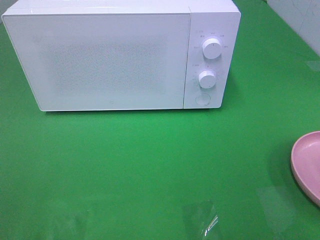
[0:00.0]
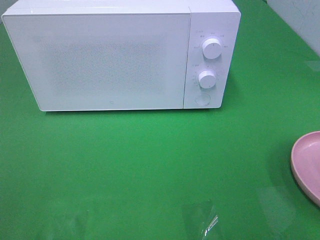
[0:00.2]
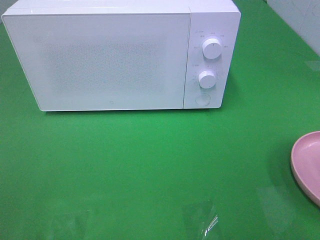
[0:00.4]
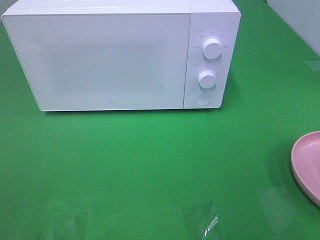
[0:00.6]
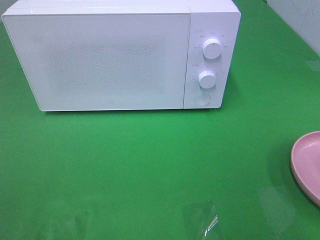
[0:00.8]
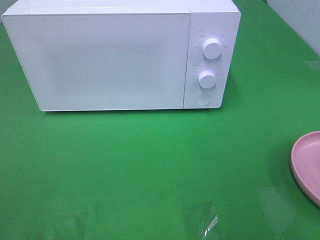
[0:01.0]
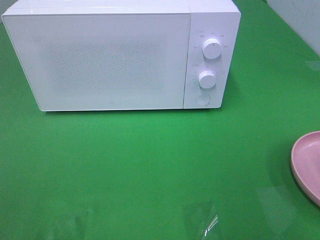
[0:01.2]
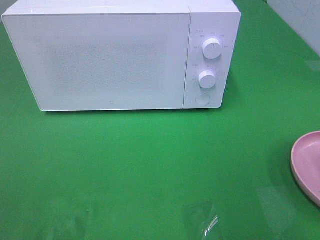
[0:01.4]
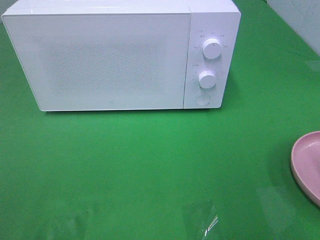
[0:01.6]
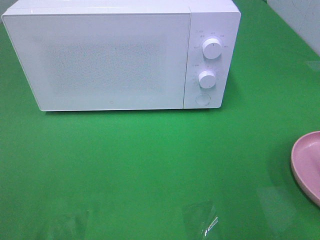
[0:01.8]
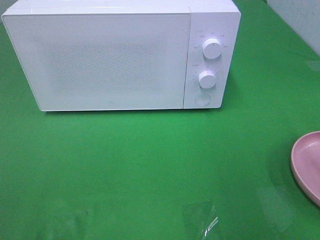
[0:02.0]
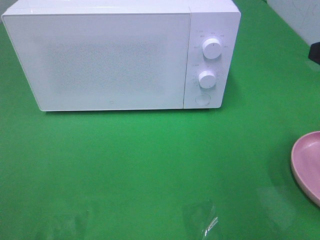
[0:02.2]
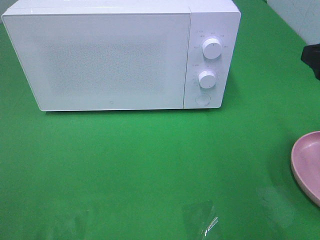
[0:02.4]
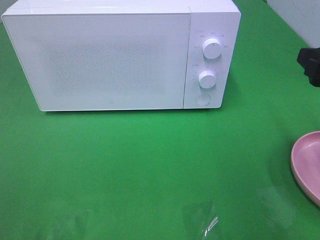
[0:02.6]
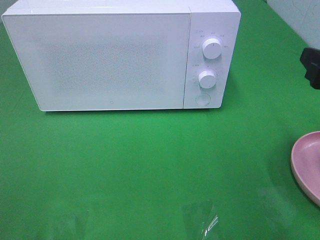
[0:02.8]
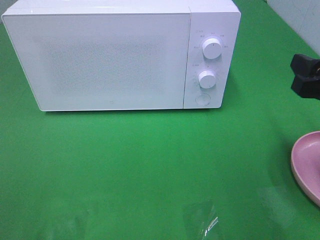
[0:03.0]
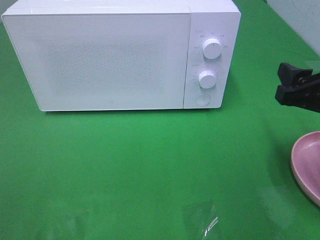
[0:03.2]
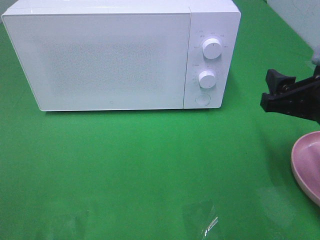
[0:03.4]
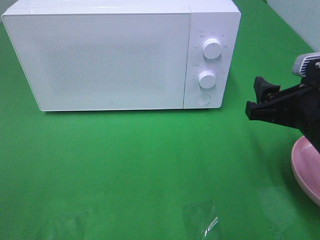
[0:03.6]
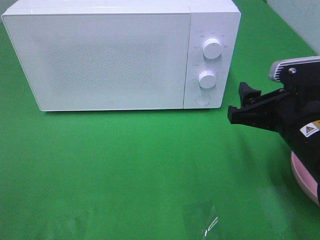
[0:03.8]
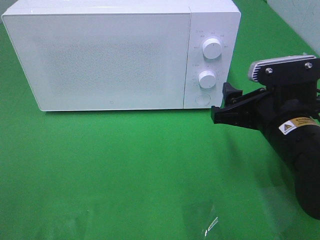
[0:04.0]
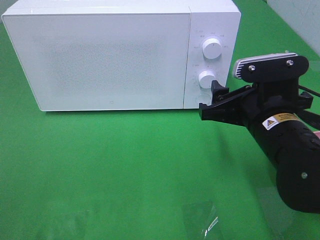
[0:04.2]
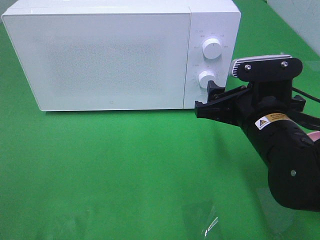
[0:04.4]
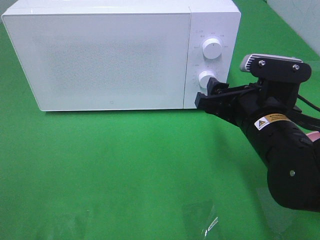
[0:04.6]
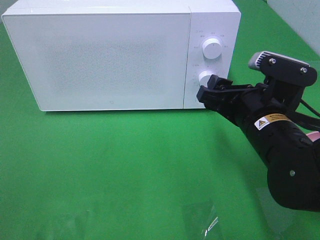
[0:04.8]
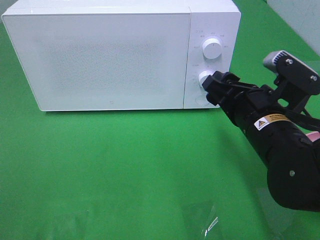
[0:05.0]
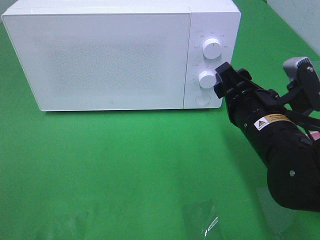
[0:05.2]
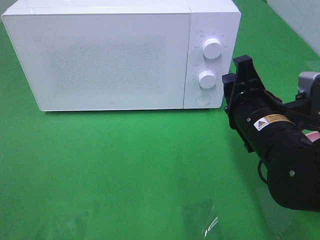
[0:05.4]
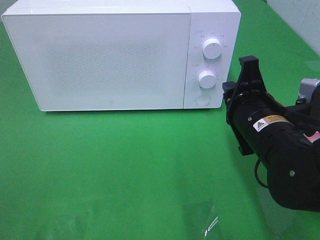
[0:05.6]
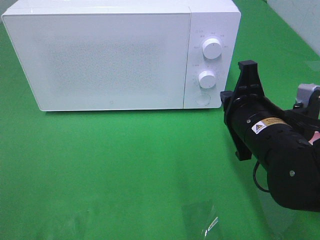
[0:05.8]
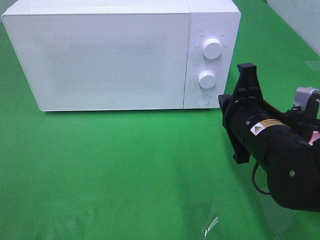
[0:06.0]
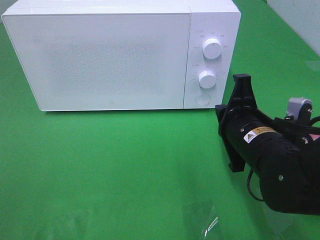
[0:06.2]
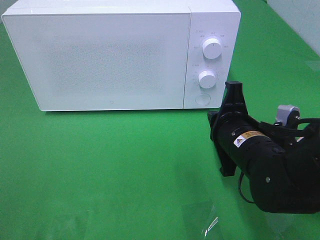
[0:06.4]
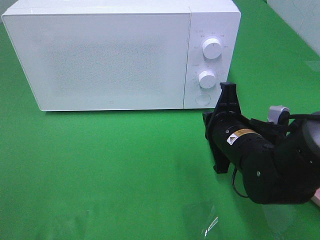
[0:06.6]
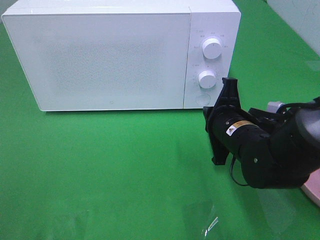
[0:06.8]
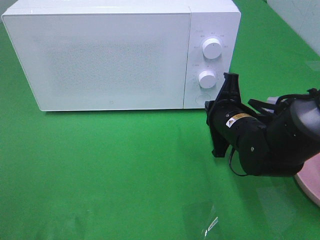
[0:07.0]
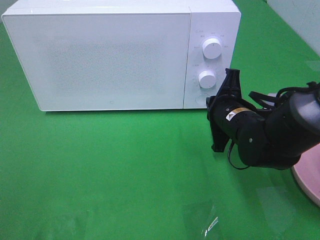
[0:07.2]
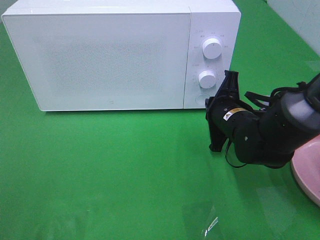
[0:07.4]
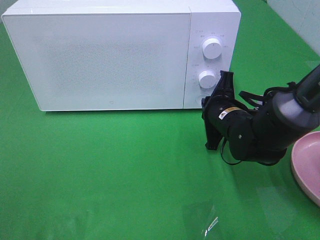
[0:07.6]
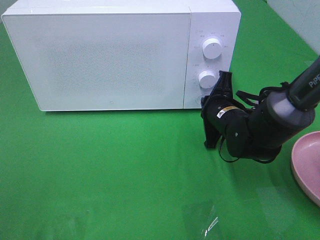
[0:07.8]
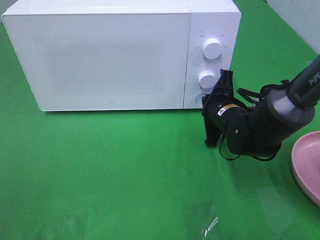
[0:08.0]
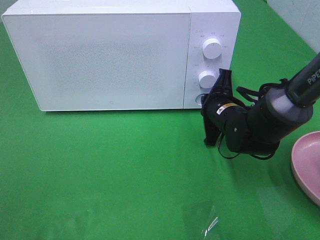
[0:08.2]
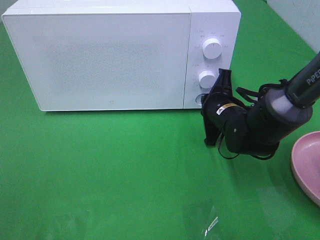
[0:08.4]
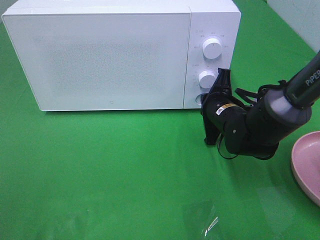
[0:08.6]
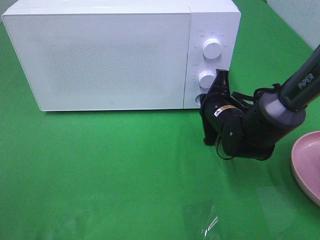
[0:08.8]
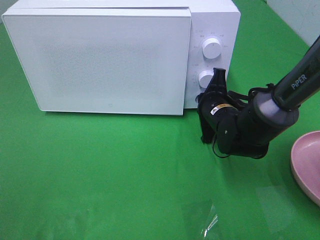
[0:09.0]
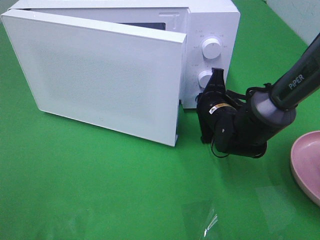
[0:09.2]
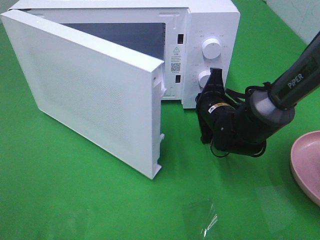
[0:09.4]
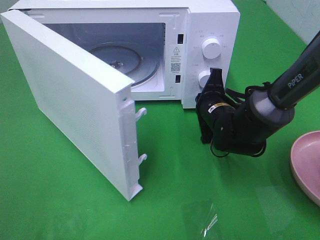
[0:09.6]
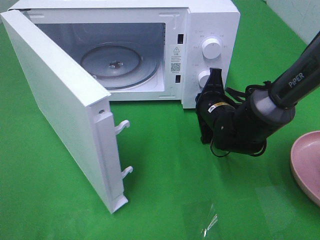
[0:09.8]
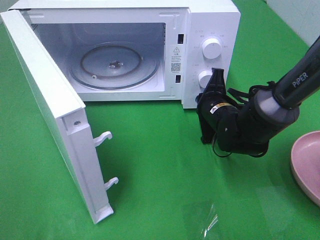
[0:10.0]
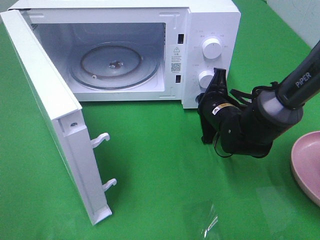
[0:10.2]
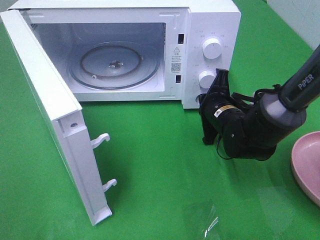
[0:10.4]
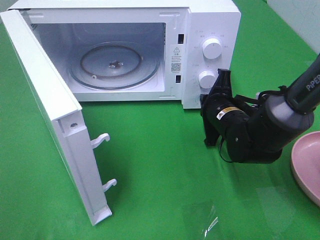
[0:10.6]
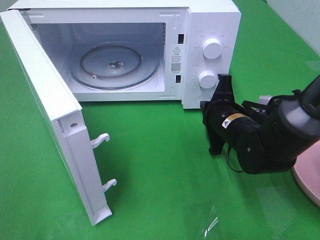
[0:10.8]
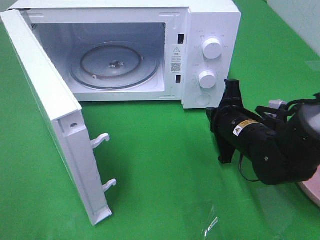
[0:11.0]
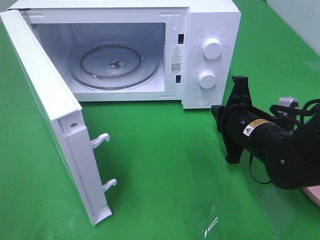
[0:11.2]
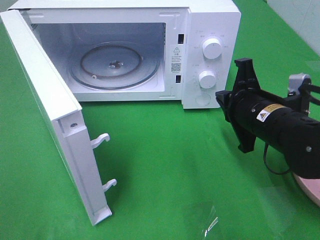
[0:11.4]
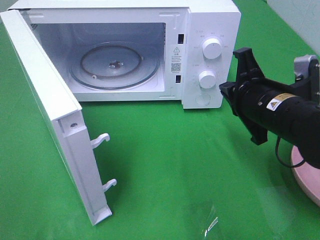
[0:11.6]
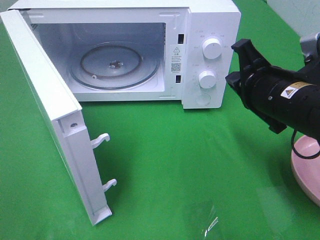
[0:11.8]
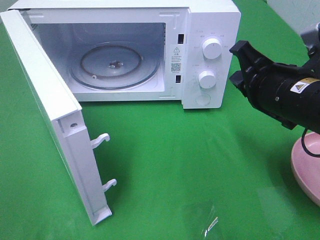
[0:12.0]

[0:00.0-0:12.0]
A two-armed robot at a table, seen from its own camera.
Task of the whole recording: Heat the burger.
Step, 0:00.0 to 0:08.8: Right hand: press the switch.
0:01.6 to 0:03.0: The right gripper travels downward and forward by some 10 cm.
0:03.0 to 0:04.4: The right gripper heads to the left and downward, covering some 15 cm.
0:04.4 to 0:06.0: The right gripper closes.
0:06.0 to 0:07.6: The right gripper shifts some 10 cm forward and downward.
0:07.6 to 0:09.0: The grippers move only a little.
0:10.4 to 0:12.0: The right gripper heads upward and backward, covering about 15 cm.

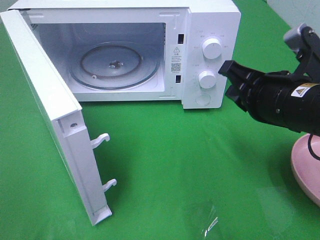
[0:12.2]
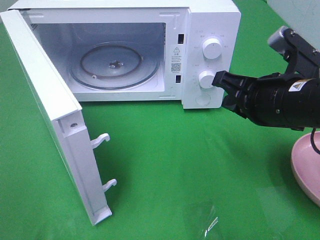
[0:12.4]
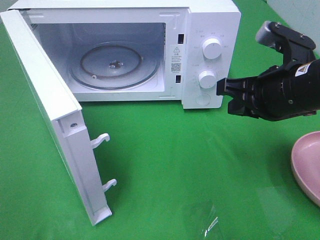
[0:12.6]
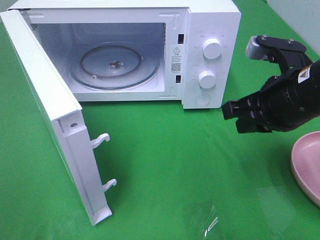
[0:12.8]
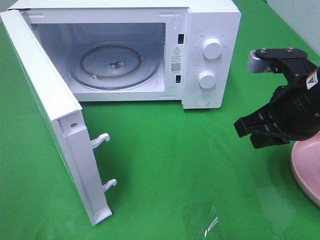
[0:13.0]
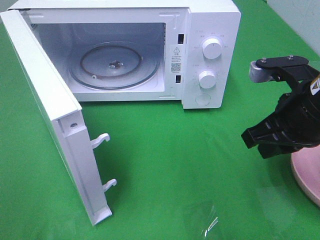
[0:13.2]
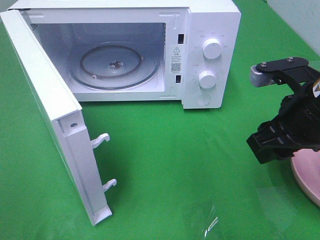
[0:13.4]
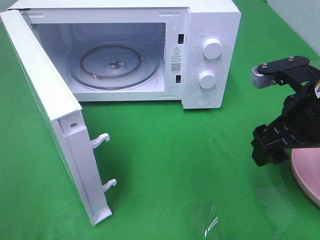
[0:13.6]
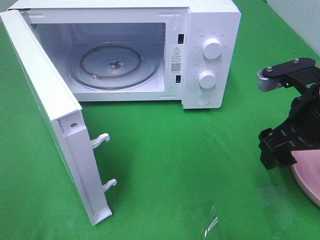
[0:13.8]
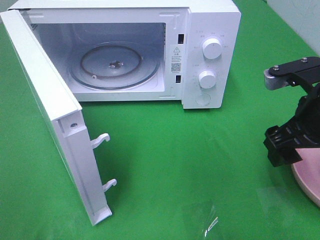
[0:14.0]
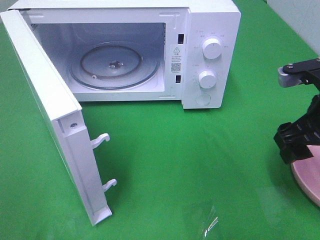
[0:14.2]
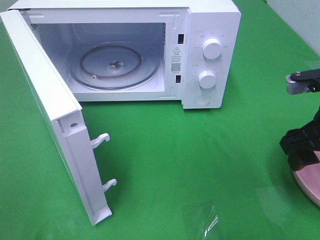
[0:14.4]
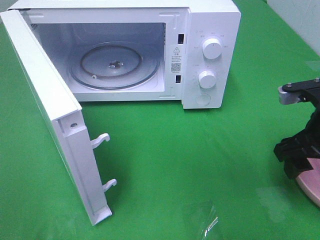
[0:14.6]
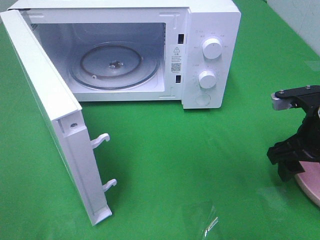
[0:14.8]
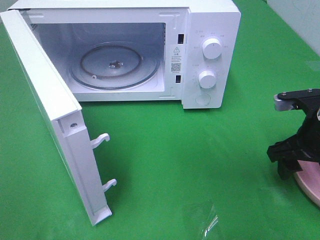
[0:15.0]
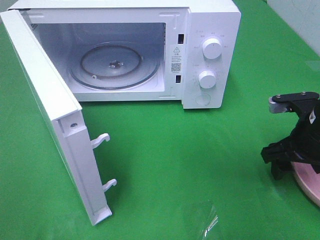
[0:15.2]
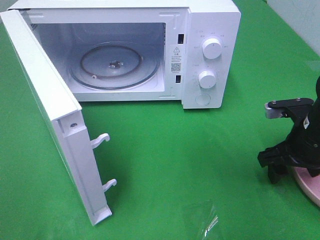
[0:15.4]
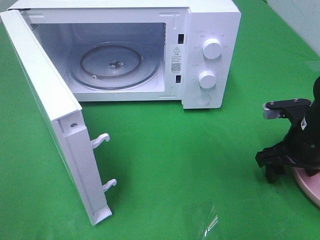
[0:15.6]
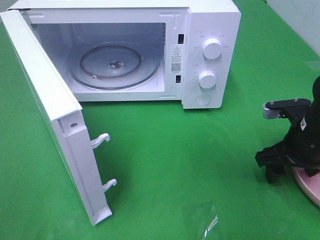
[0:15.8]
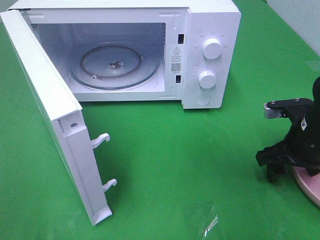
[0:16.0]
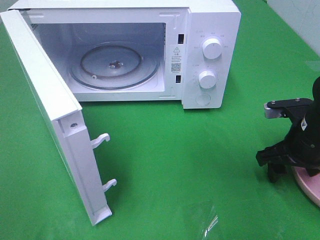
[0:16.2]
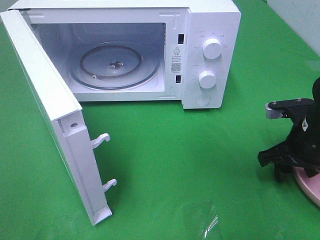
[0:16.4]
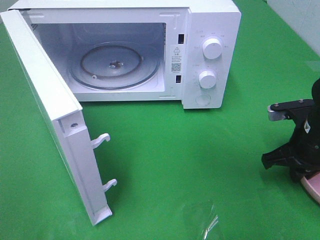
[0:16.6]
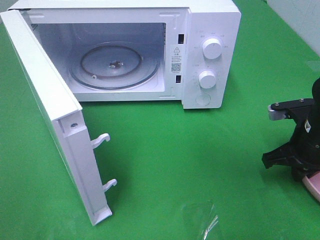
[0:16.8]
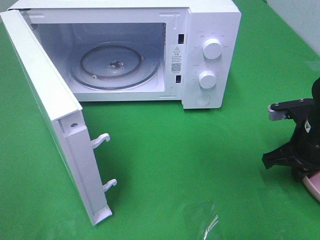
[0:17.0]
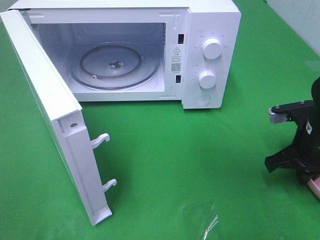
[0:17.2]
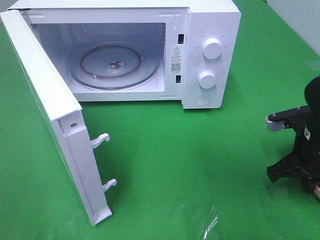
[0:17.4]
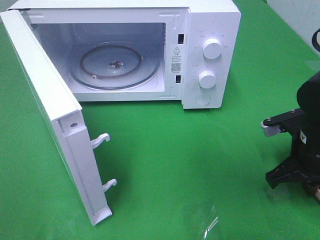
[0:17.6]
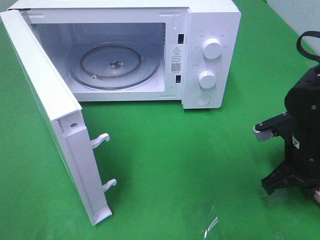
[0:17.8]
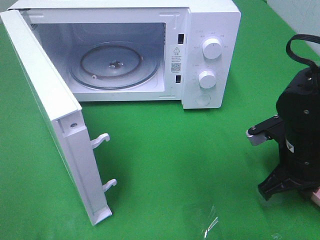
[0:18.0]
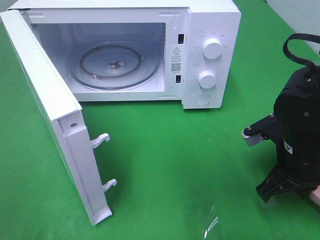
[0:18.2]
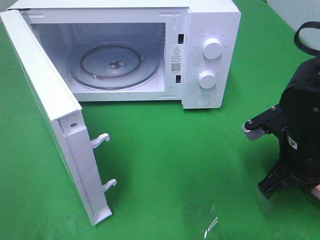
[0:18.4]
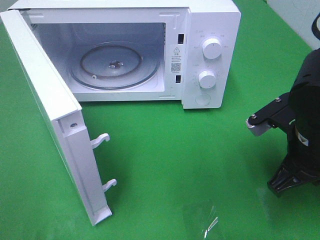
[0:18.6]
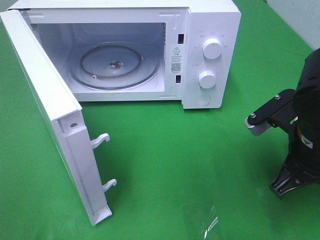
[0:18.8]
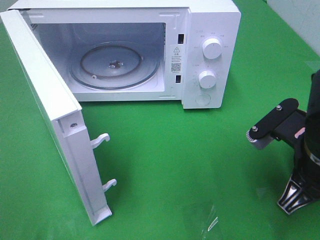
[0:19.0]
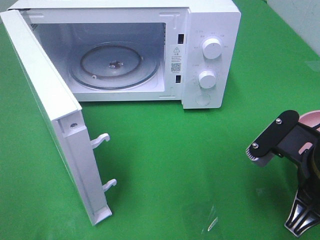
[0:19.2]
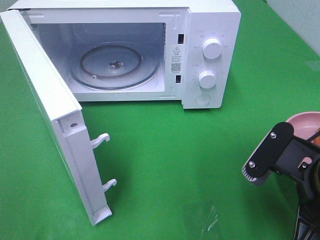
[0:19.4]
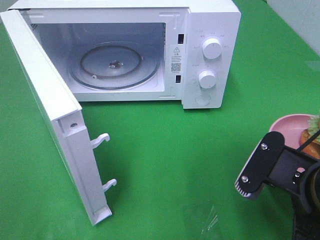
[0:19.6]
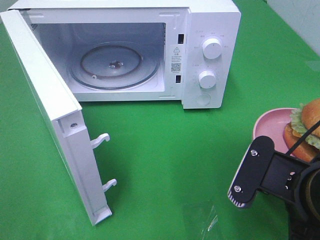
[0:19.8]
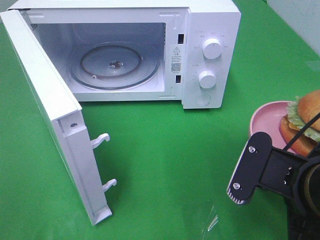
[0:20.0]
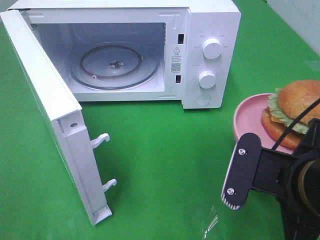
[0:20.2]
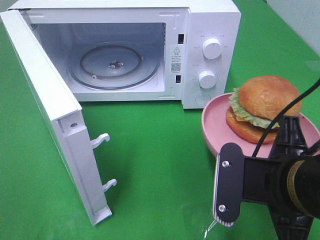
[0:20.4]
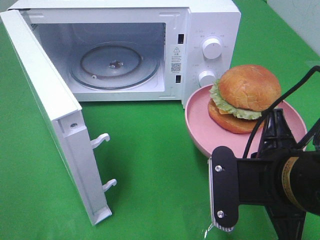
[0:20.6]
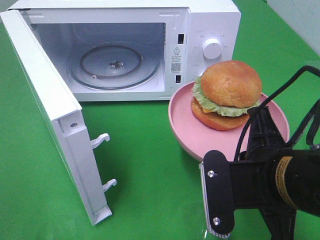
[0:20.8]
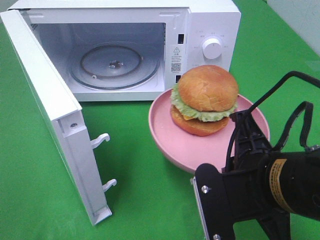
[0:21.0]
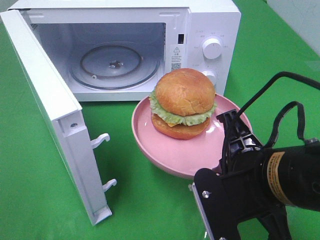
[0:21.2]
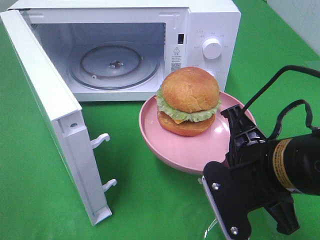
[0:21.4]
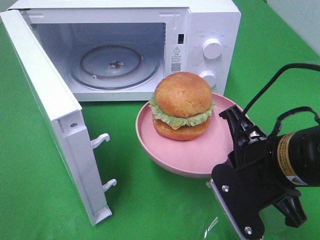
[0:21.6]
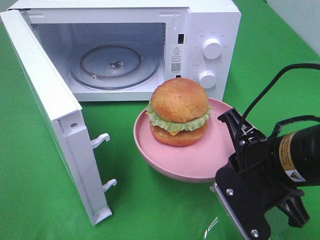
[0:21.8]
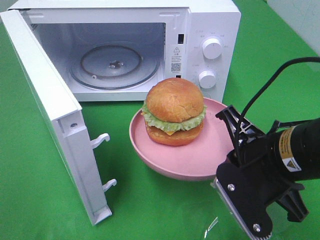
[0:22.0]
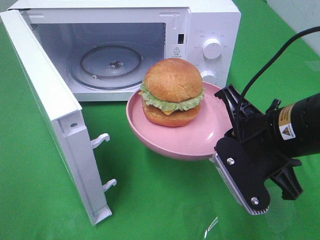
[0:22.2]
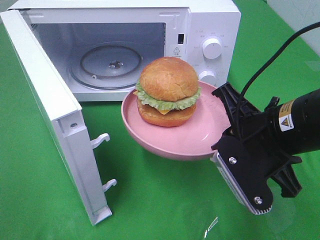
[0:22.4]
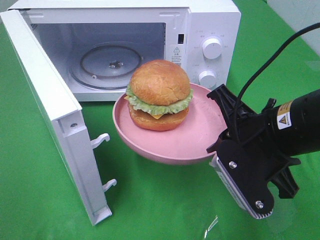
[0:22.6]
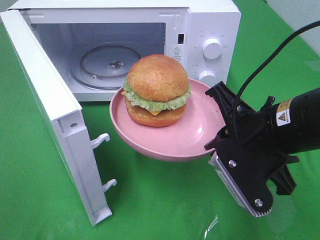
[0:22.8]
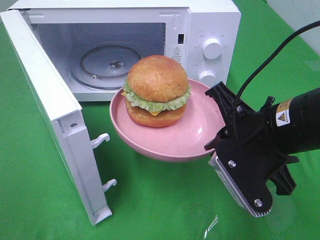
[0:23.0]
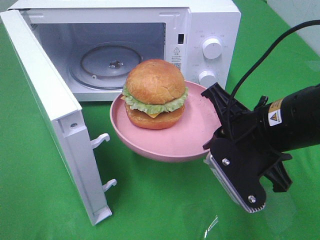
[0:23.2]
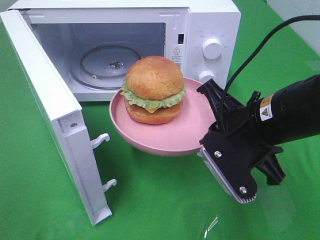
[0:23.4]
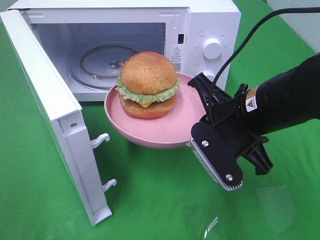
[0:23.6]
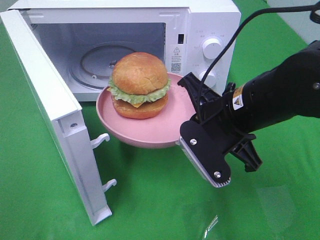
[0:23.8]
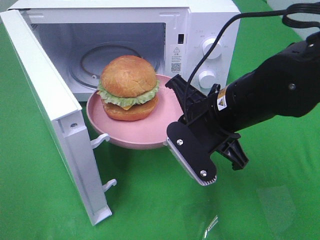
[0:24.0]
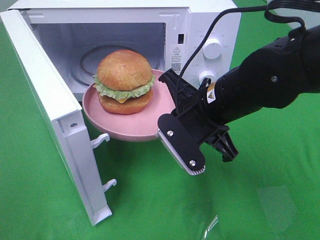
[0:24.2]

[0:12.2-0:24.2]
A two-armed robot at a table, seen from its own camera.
Task of the whole recording: Heat the burger.
Step, 0:12.2 to 0:16.6: Right hand: grab the plate with the hamburger.
0:12.2 to 0:13.8: The right gripper opens up.
0:13.8 to 0:15.2: The right gripper travels downward by approximately 10 cm.
0:15.2 to 0:16.6: The right gripper closes.
0:16.6 to 0:18.2: The right gripper moves to the left, approximately 5 cm.
0:18.2 to 0:19.8: The right gripper is displaced backward and upward by about 10 cm.
0:21.2 to 0:22.6: The right gripper shifts approximately 5 cm forward.
0:22.6 to 0:24.2: The right gripper goes roughly 10 cm to the left and forward.
